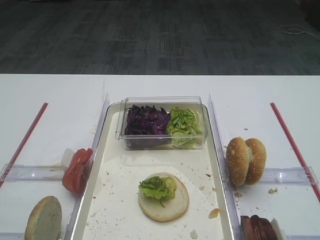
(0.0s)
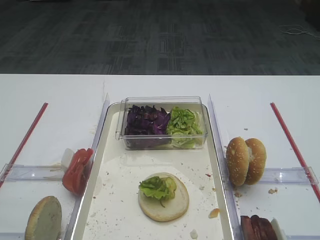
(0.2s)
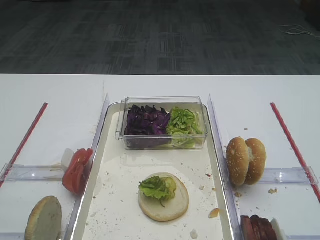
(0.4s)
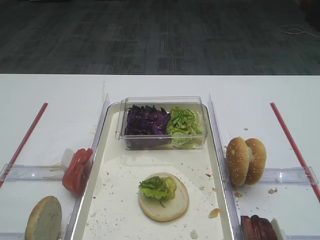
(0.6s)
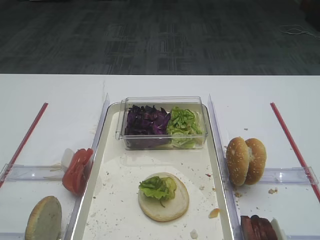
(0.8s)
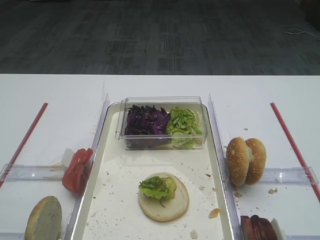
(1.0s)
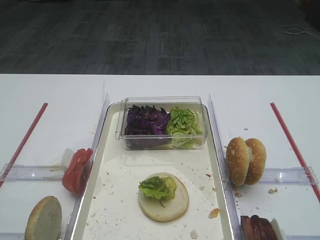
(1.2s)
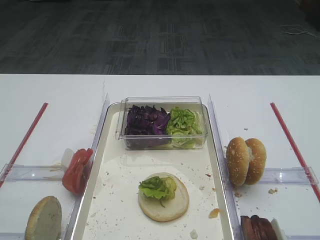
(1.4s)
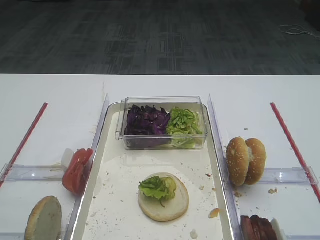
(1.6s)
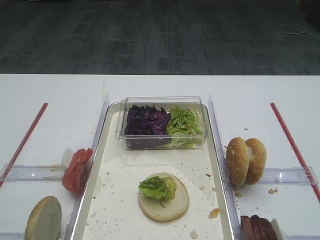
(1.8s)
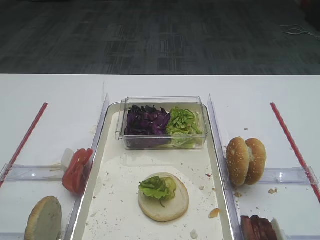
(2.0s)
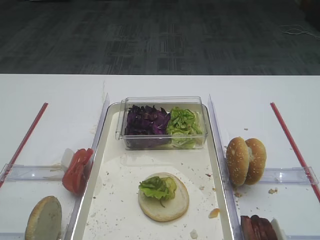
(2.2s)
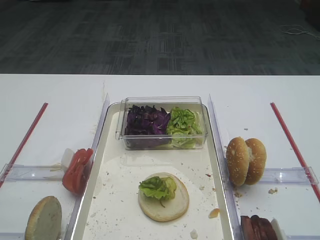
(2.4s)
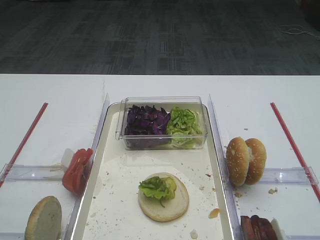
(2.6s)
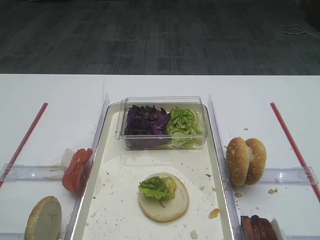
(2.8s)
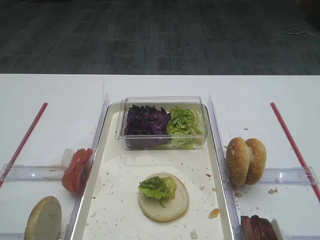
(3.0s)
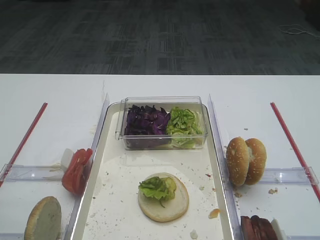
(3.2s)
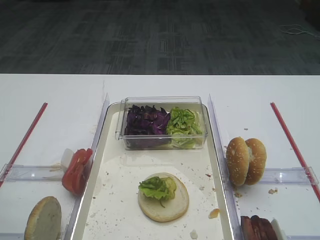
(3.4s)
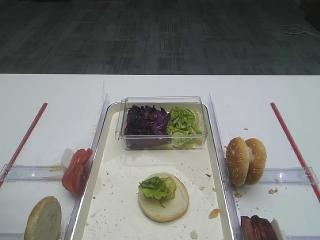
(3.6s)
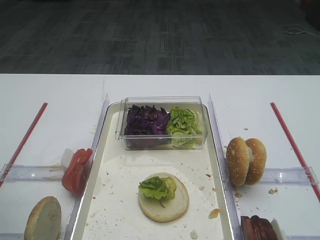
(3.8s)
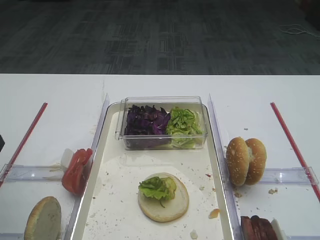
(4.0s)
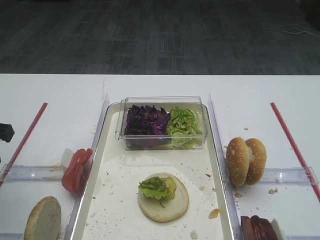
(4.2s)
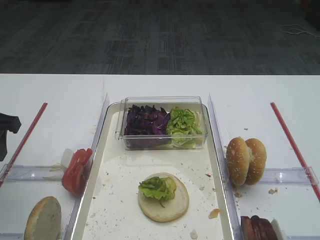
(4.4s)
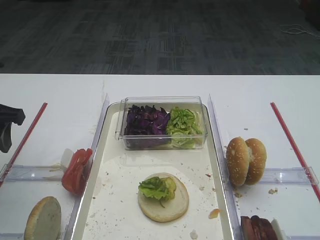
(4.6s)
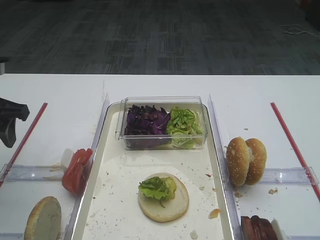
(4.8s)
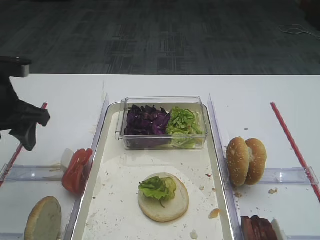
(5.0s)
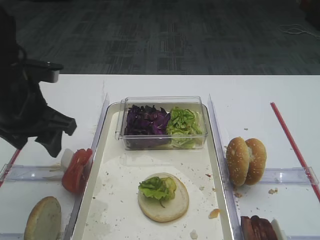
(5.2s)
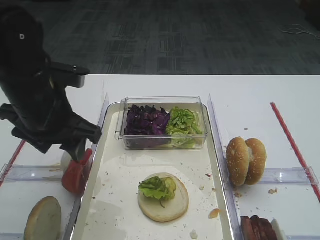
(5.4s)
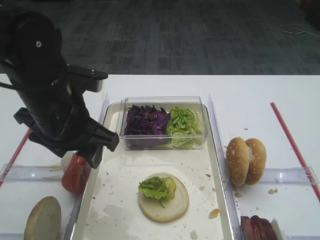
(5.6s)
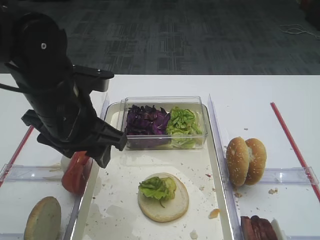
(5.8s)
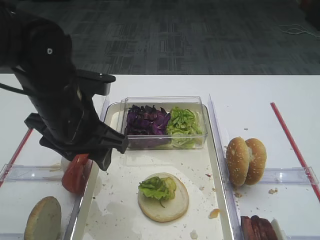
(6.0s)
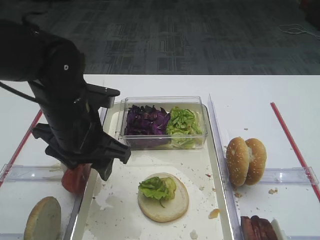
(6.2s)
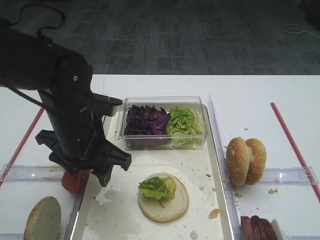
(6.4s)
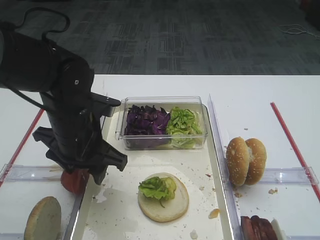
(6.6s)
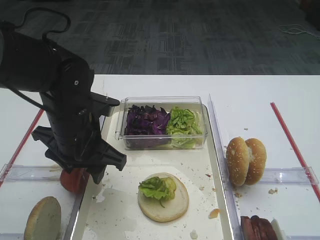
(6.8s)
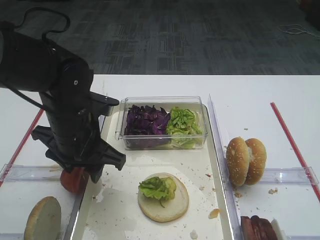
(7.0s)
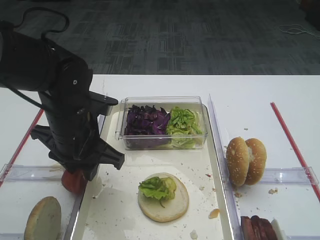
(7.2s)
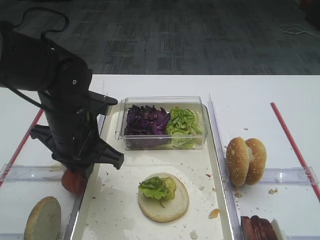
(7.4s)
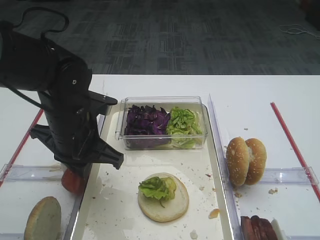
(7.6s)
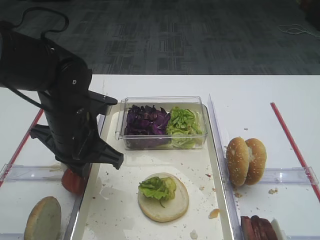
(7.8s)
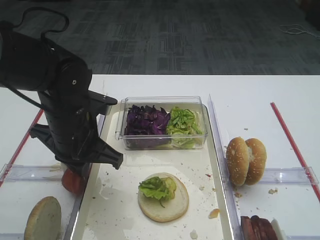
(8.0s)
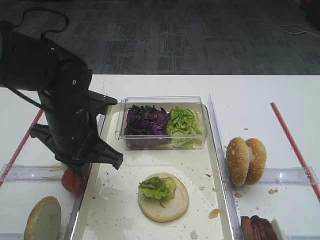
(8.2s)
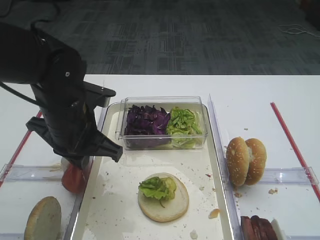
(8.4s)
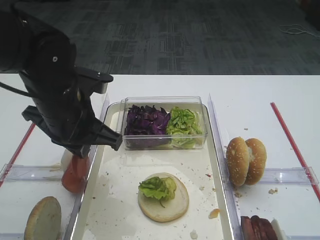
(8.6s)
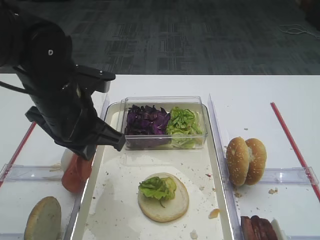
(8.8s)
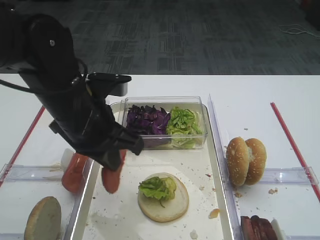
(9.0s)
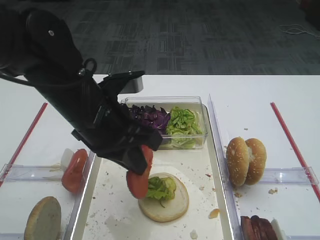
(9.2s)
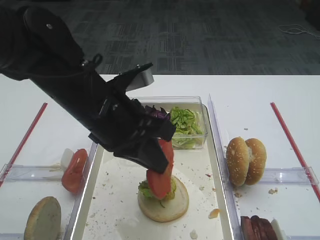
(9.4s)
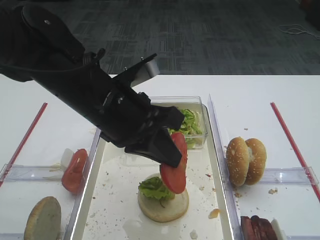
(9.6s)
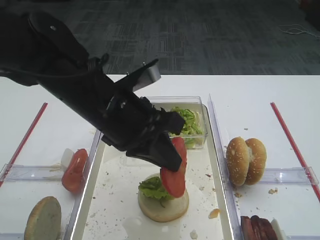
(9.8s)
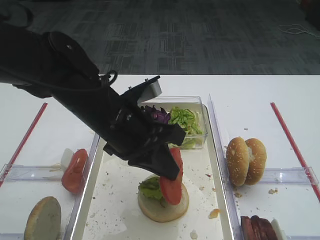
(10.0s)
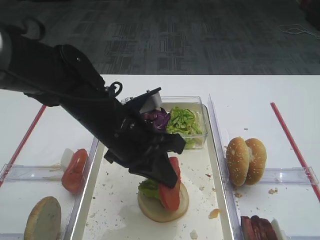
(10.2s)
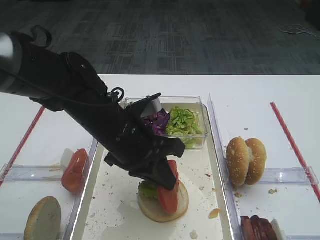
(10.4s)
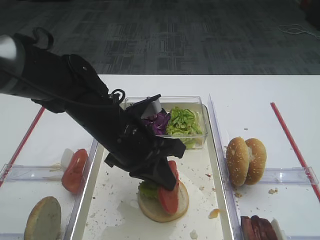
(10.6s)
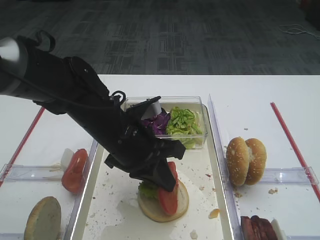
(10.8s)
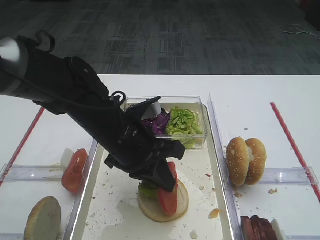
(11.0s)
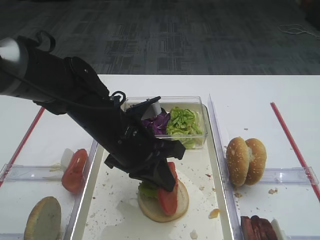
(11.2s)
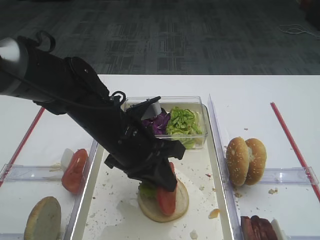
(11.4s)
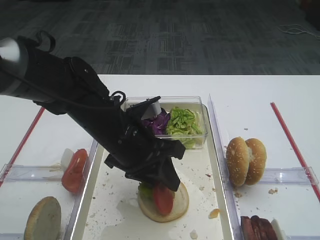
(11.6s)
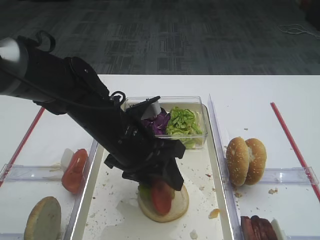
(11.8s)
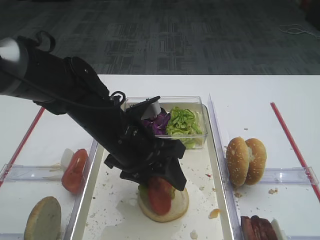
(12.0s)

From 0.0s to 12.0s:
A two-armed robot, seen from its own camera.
Step, from 0.0s to 8.6s: Pick up the tomato slice with the left gripper.
From 3.0s to 4.4s: The left gripper travels forward by approximately 15 cm.
From 4.4s to 6.0s: The left gripper shifts roughly 15 cm to the right.
From 6.0s to 7.6s: The left gripper closes its fingers.
From 7.6s to 9.0s: The left gripper changes place by roughly 5 cm.
From 9.0s to 10.4s: The left gripper changes place by some 5 cm.
From 10.4s to 12.0s: The left gripper opens its fingers.

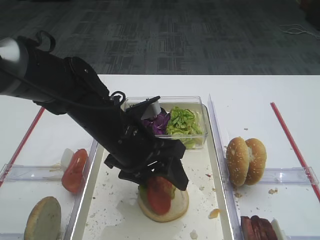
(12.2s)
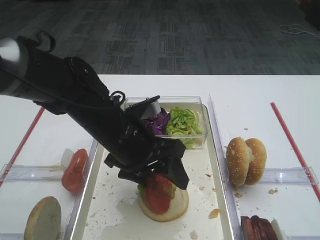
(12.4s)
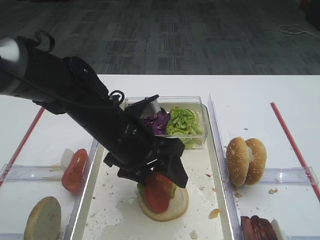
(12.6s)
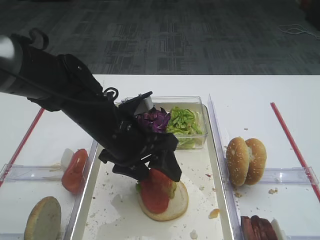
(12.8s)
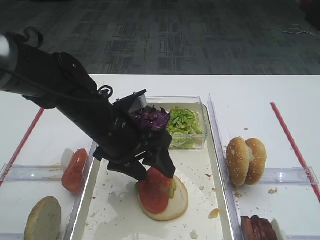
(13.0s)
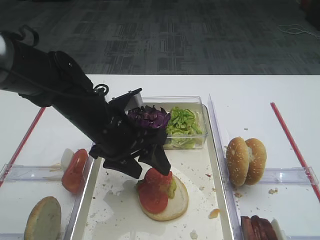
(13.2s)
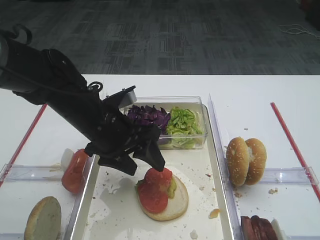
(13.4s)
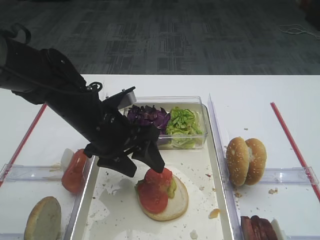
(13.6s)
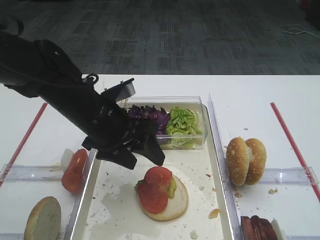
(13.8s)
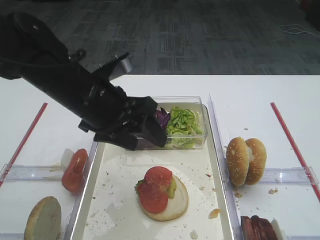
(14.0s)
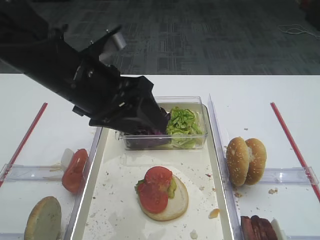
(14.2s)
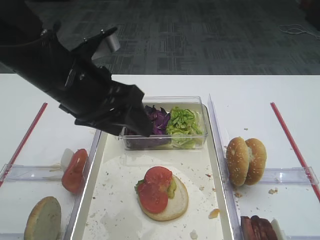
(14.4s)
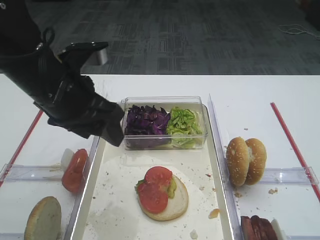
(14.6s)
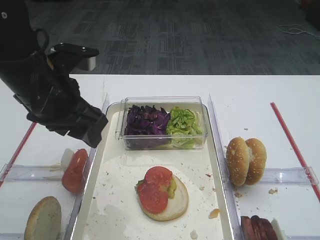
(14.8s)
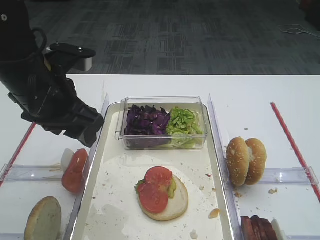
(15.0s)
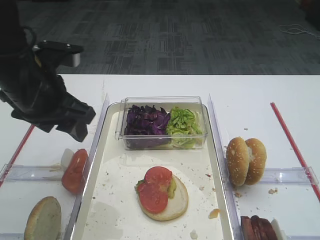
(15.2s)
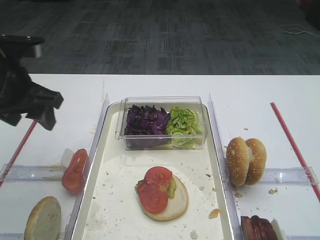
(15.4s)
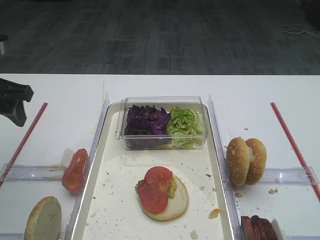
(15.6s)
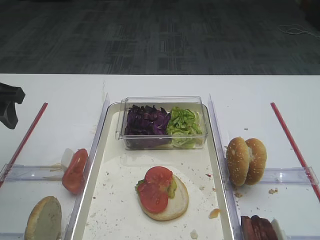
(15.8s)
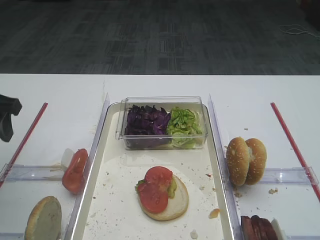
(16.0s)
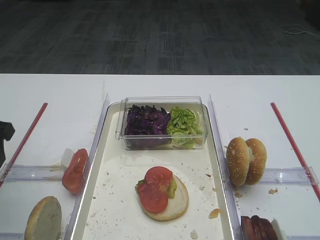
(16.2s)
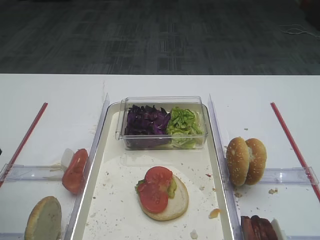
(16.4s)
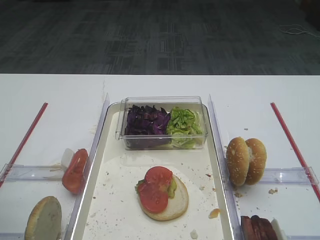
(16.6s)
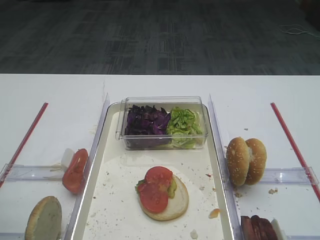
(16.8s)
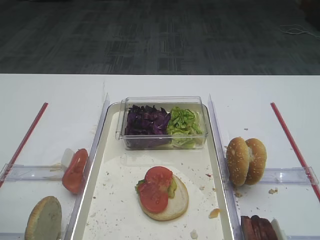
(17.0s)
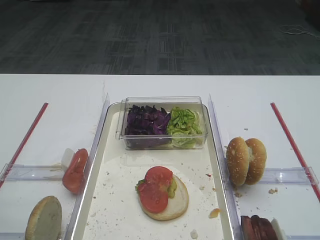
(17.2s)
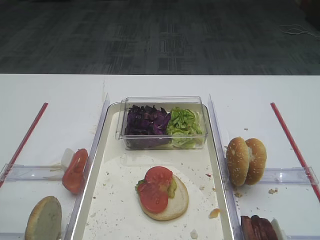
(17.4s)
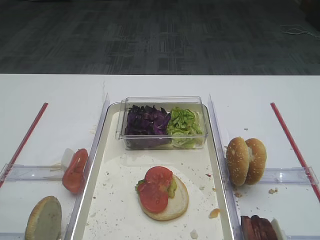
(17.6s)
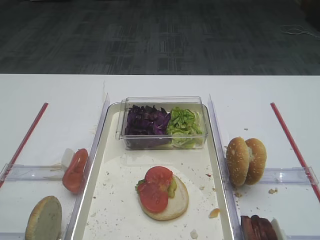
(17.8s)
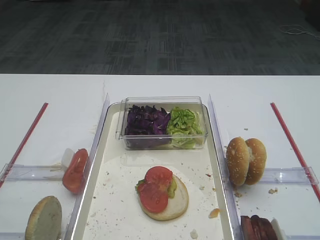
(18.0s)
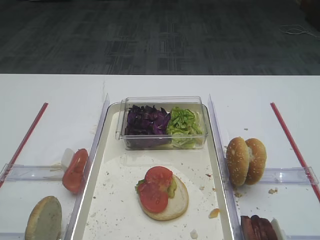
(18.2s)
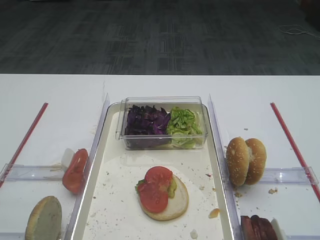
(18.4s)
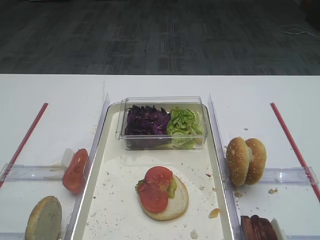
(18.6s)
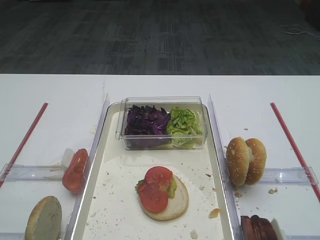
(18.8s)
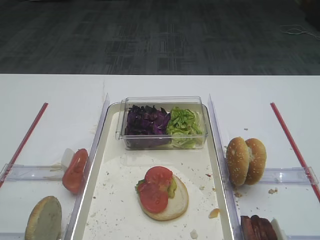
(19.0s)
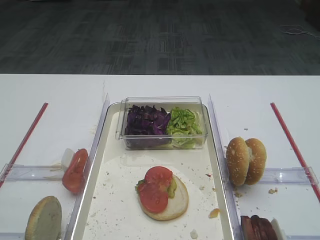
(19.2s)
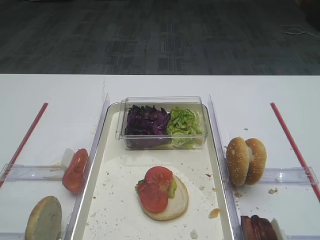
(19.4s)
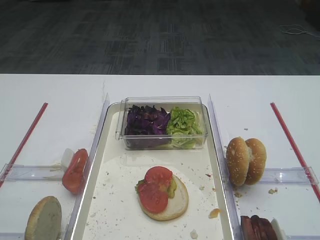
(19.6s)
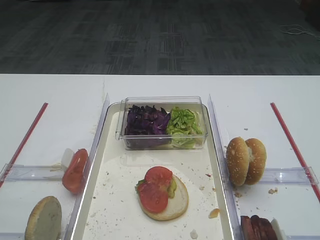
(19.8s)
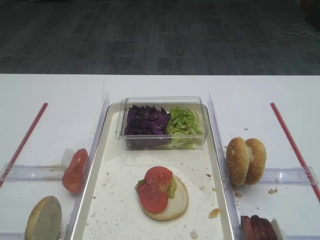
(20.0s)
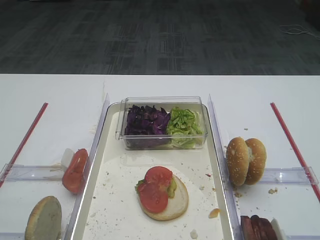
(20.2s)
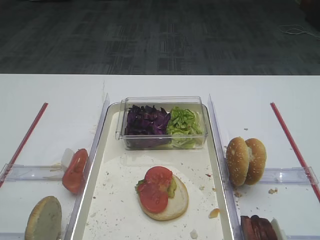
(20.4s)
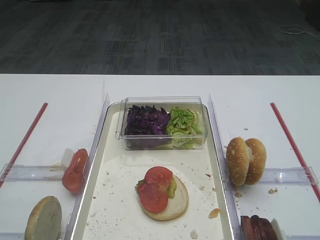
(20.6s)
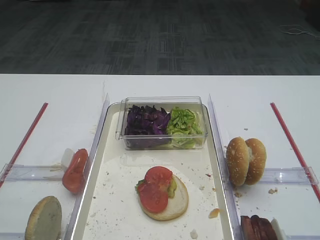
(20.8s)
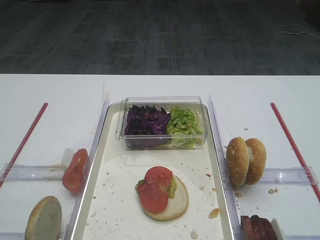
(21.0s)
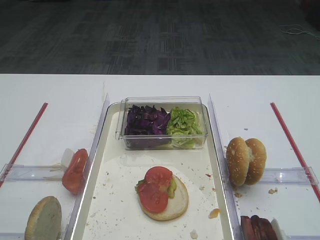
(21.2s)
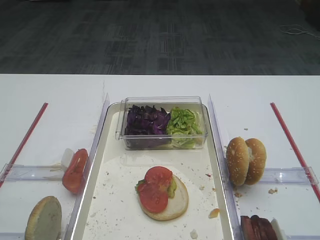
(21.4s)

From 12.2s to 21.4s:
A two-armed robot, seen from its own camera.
From 12.2s to 13.8s: The grippers stay close to where they were, moving slightly.
From 13.8s to 15.2s: The left gripper is displaced to the left and upward by some 10 cm.
From 15.2s to 16.8s: The left gripper heads backward and to the left, covering some 15 cm.
From 18.4s to 21.4s: Neither gripper changes place.

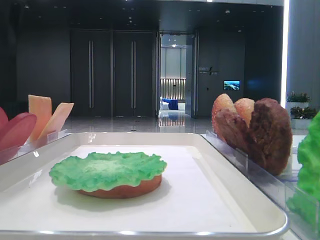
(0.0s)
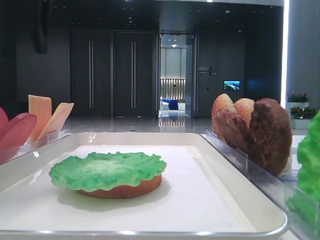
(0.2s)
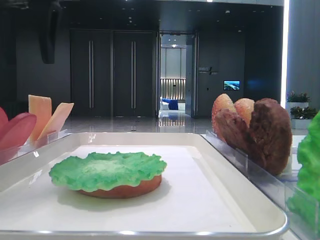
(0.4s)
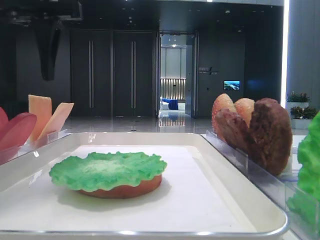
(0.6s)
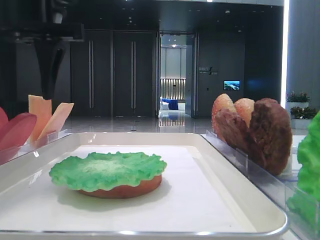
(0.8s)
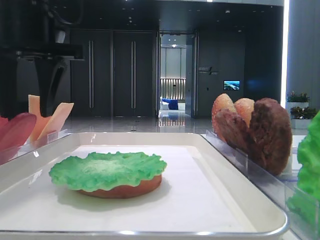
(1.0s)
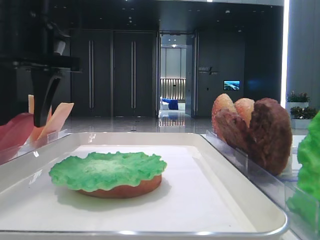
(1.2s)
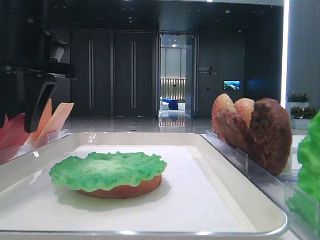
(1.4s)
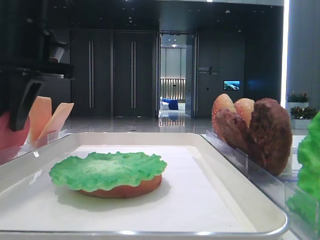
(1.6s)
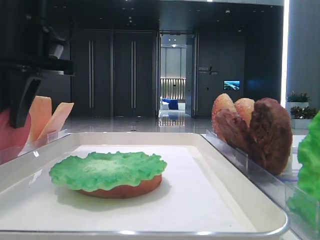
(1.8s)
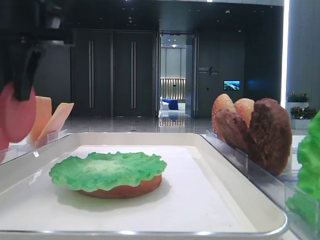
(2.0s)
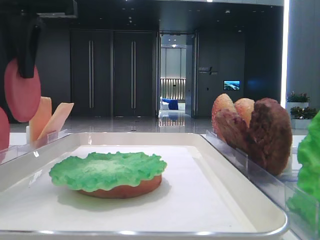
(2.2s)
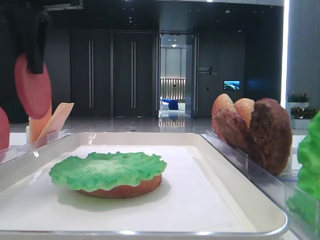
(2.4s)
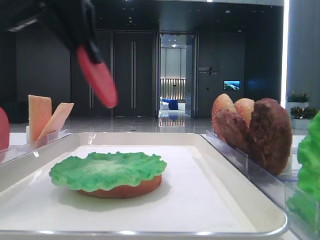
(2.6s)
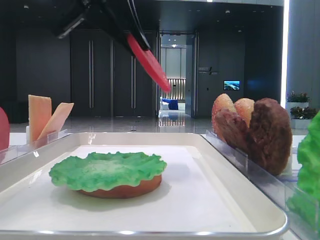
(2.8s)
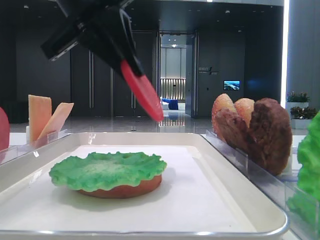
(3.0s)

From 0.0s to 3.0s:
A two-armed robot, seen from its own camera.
From 0.0s to 1.6s: The left gripper goes some 10 cm downward and to the right, and closes its fingers.
From 1.6s to 3.0s: The left gripper heads to the right, covering about 5 cm.
